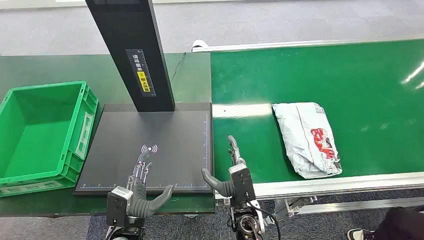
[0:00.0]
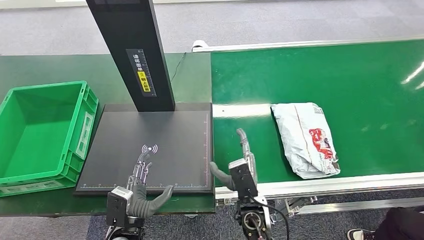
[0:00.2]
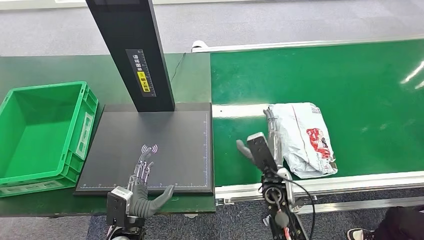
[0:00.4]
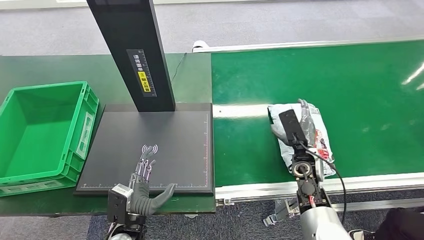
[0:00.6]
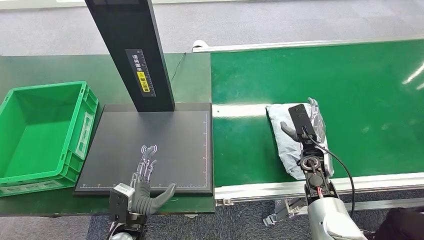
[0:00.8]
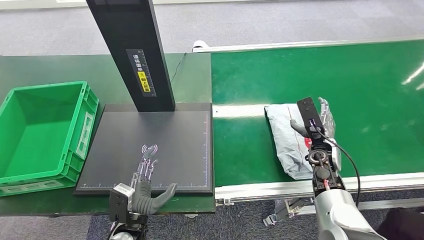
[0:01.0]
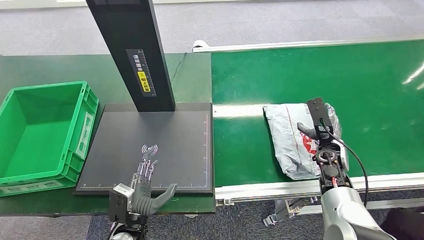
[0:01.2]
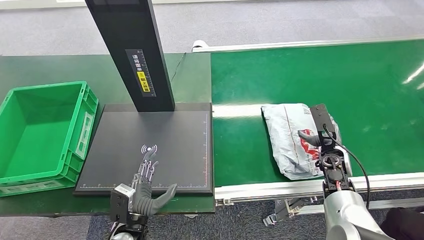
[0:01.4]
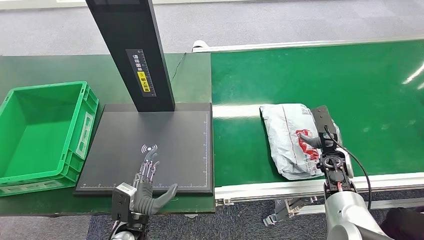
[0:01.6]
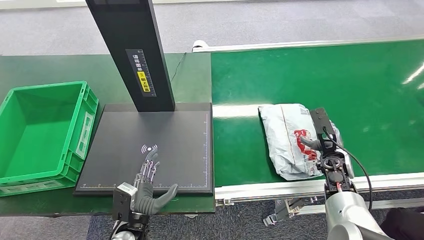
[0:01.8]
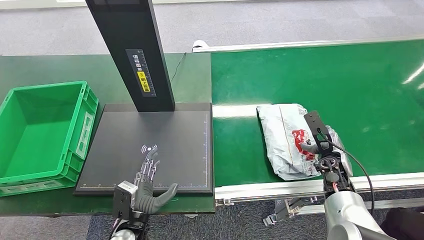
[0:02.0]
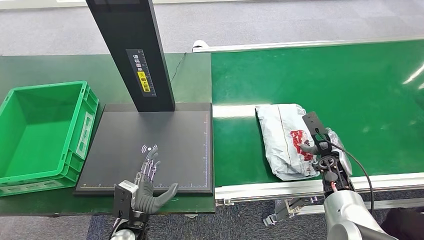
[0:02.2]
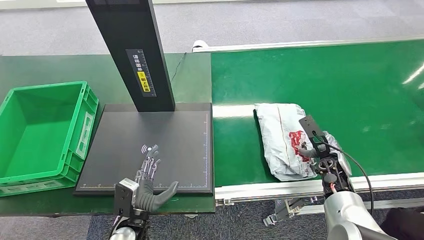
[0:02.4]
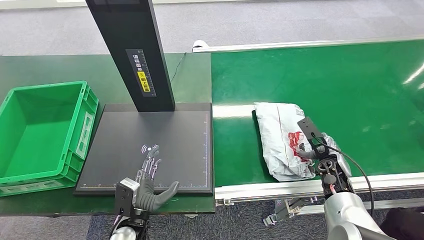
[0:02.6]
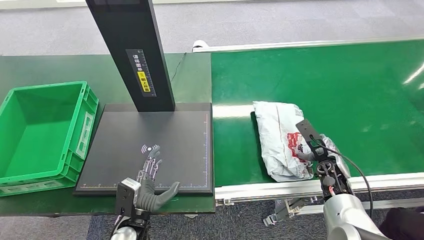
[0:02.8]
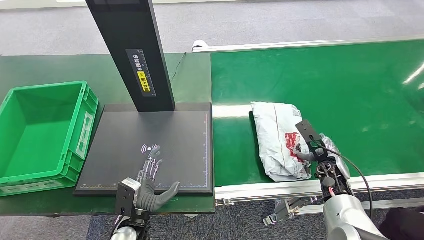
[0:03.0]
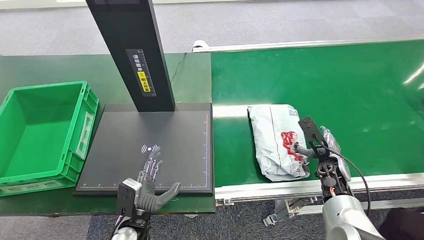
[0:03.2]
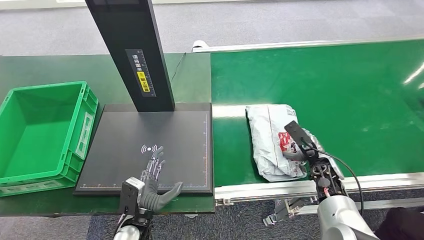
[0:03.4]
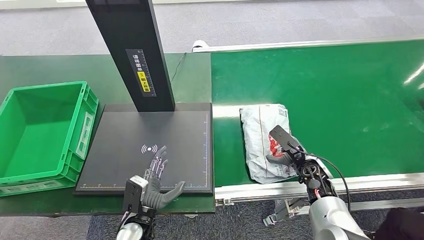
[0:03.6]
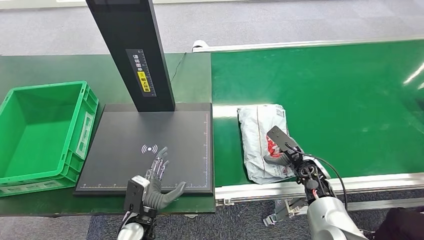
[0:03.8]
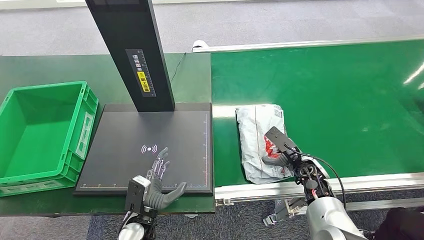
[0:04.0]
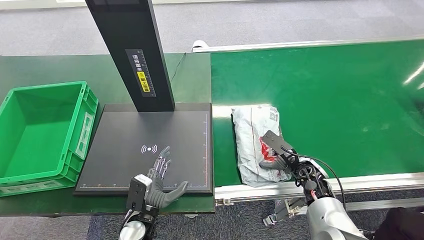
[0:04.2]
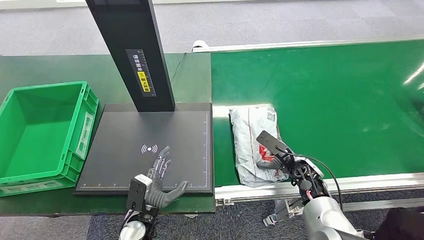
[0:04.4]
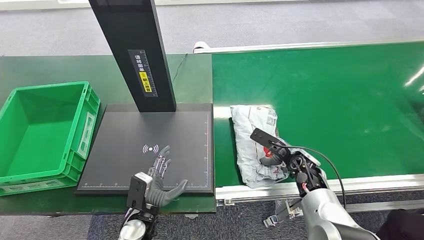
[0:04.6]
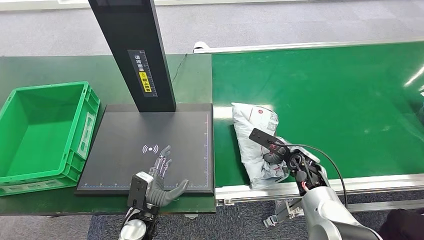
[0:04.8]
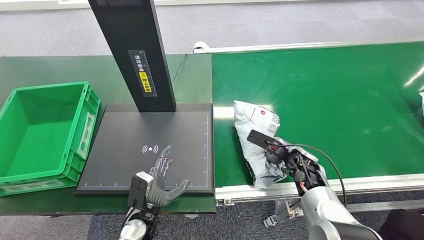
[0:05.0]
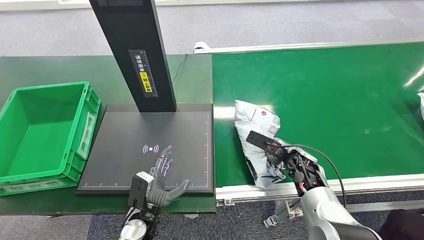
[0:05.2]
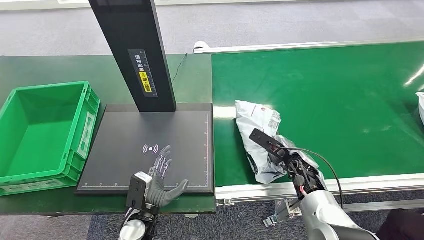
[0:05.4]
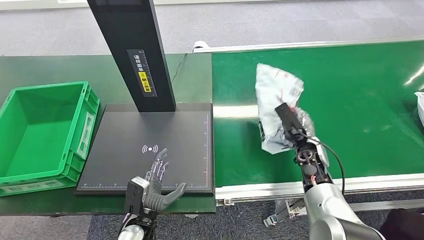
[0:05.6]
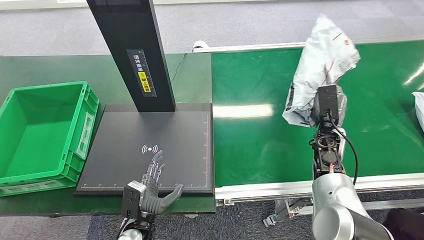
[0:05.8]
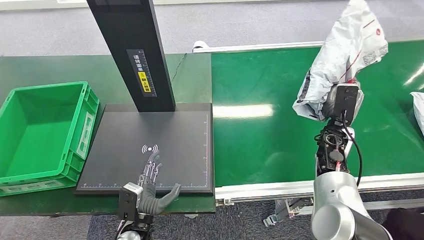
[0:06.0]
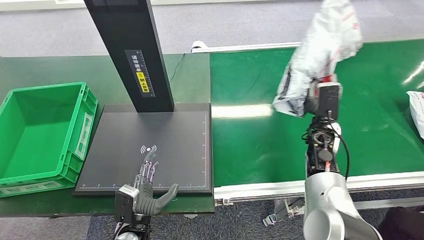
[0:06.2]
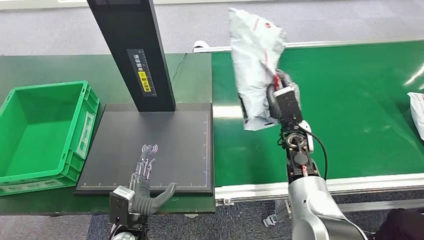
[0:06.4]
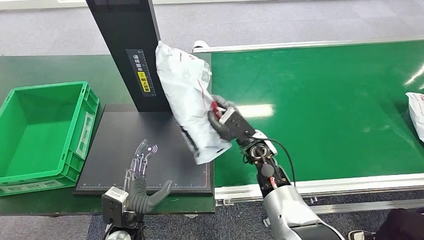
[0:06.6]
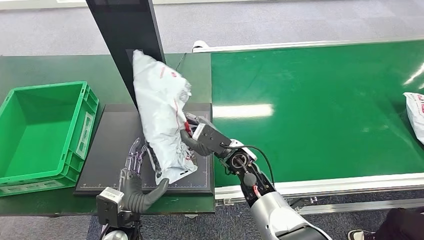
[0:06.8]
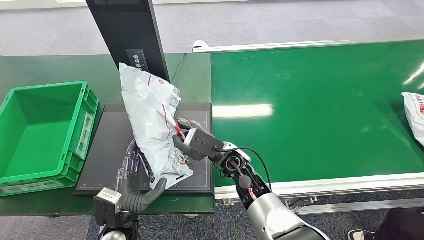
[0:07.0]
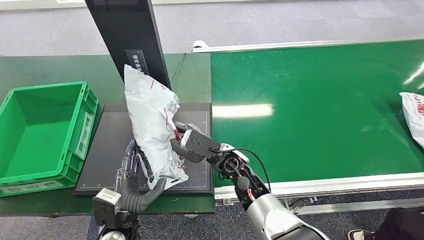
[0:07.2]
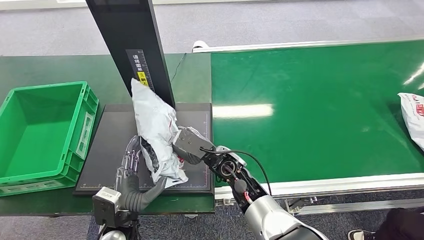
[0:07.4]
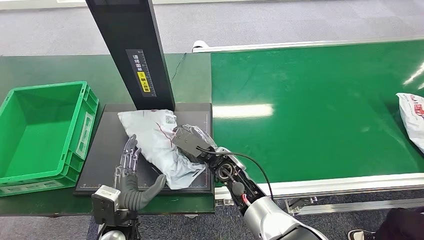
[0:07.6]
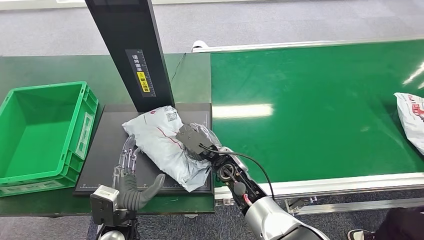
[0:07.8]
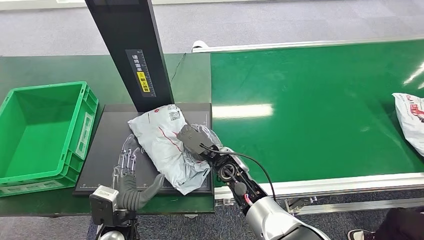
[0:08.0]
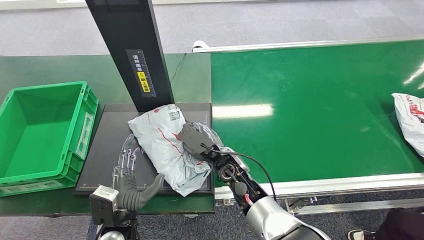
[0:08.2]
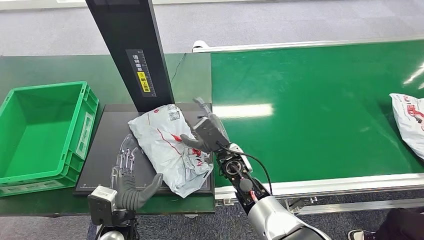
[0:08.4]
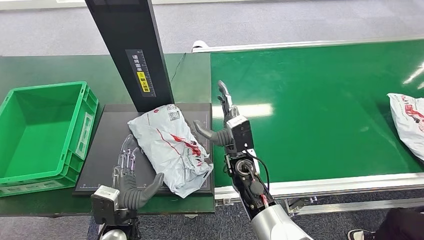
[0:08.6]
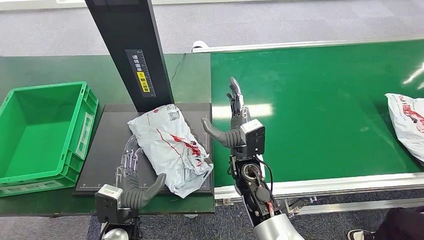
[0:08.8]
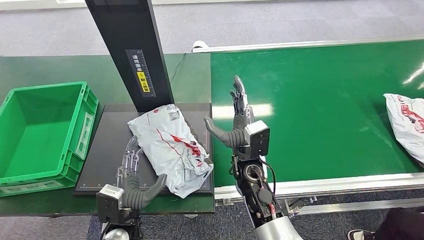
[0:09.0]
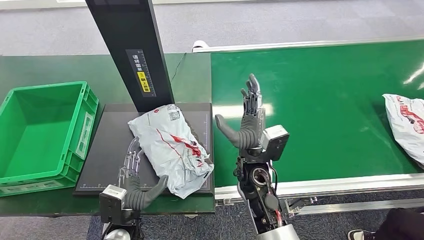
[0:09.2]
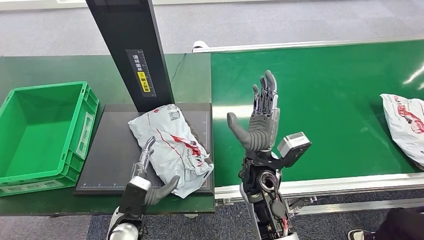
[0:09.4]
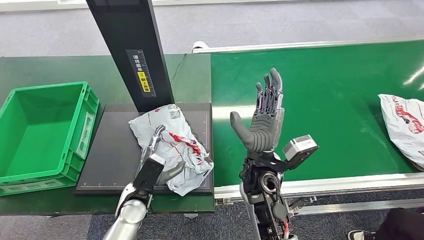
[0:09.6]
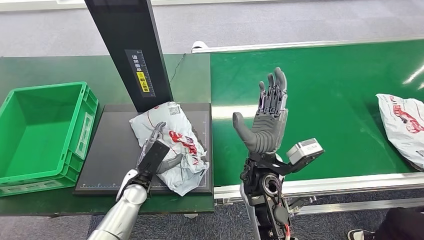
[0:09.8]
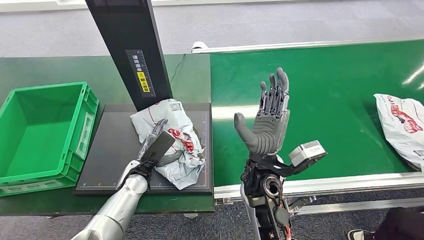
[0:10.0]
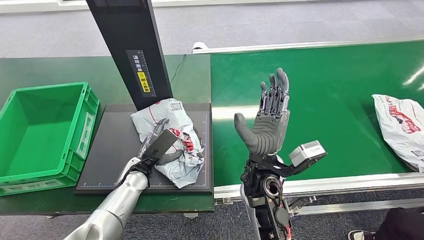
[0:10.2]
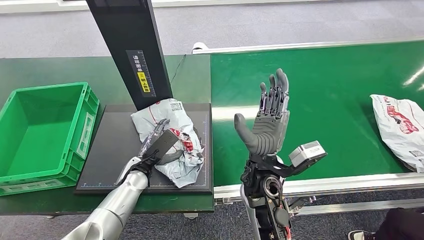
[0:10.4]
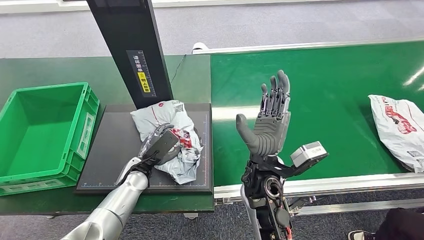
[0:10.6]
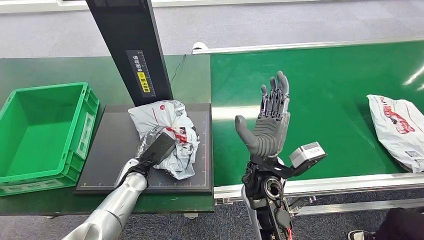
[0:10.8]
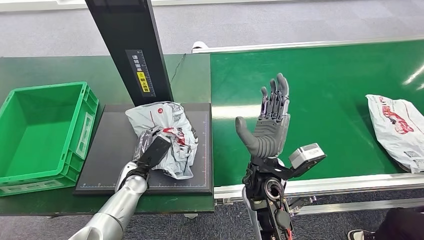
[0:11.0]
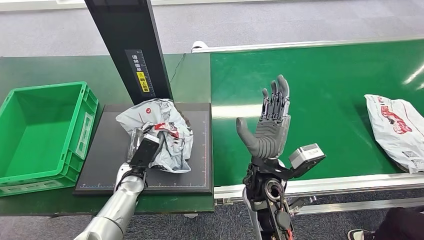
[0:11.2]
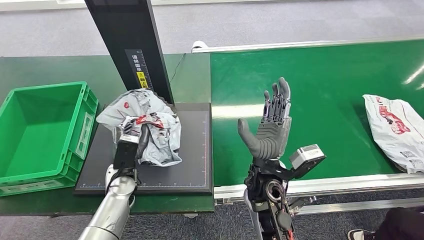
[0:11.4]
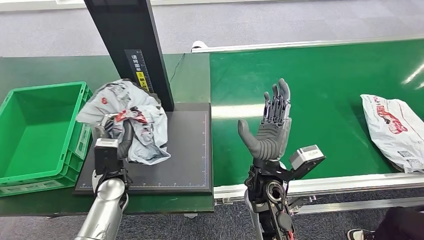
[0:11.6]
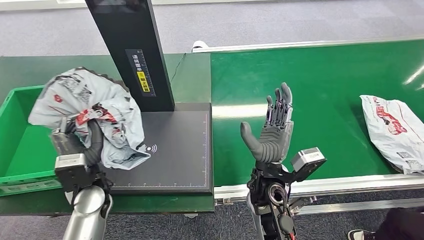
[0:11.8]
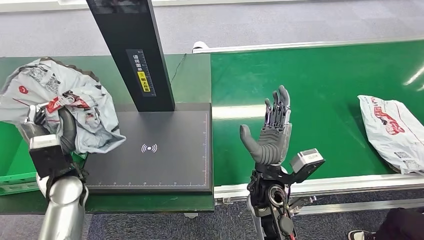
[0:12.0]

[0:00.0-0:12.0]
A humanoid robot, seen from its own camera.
Step, 0.0 to 6.0 s: Pick up the package from the conveyor belt.
Step, 6.2 to 9.0 s: Place the package onto the inbound machine.
Step, 9.2 to 11.4 s: Pick up the package from the inbound machine.
3.0 to 4.4 s: The right hand shifts some 5 cm to the left.
4.4 to 6.0 s: The right hand is displaced upward and forward by about 10 cm.

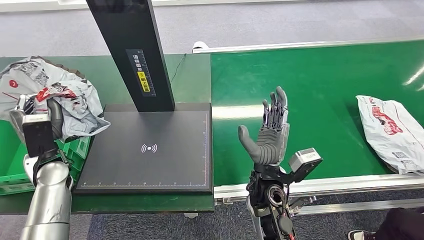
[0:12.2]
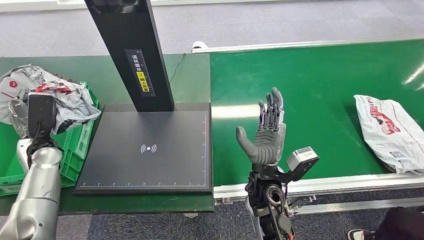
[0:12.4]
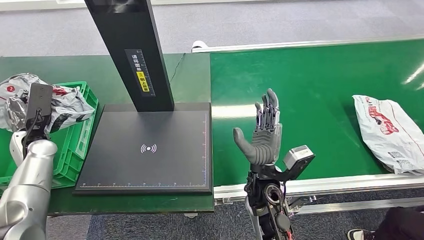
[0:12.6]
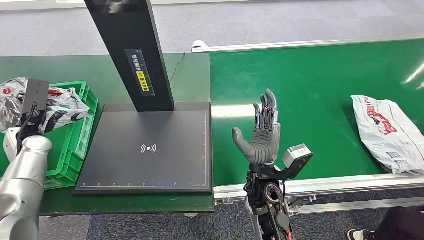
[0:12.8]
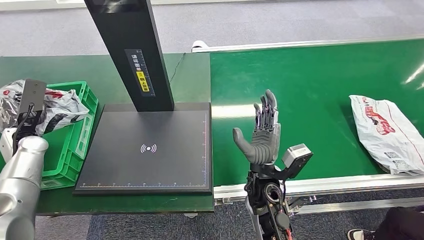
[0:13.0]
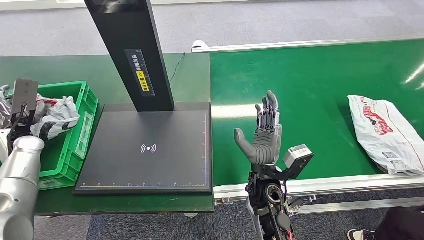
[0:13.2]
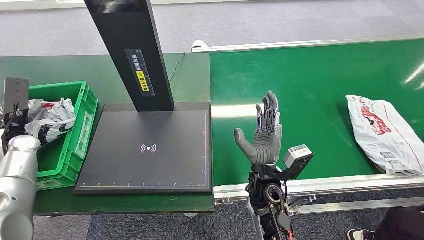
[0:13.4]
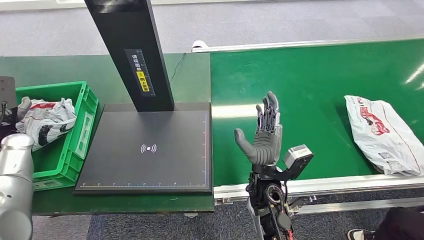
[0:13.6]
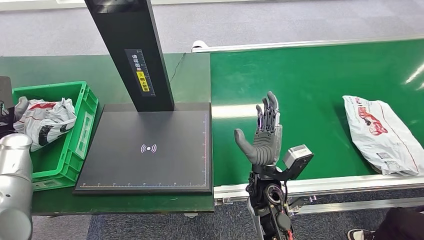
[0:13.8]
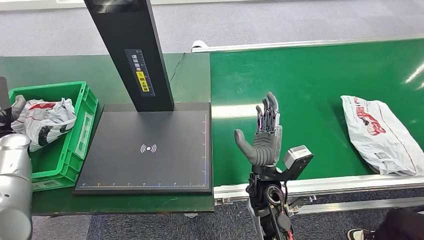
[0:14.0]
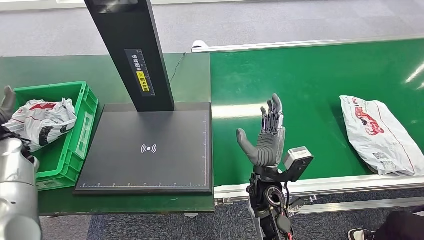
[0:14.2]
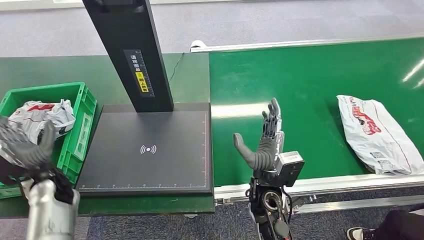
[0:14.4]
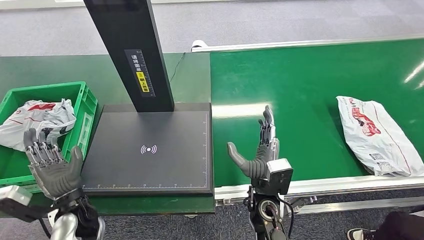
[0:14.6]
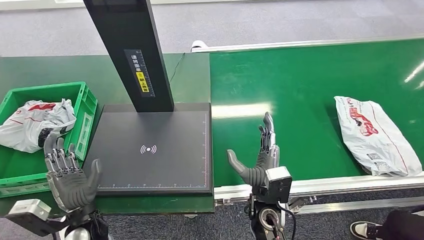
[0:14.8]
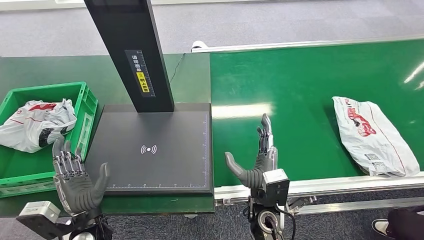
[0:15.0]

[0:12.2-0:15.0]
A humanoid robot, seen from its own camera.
Step, 12.2 to 15.0 s: Place the package into the parcel locker.
13.6 to 15.0 s: The right hand travels backward by roughly 5 cm. The left hand moves to the right and backward, some 30 cm.

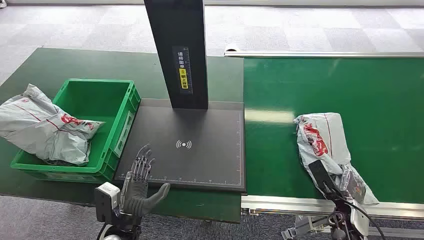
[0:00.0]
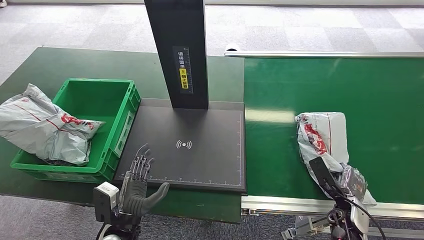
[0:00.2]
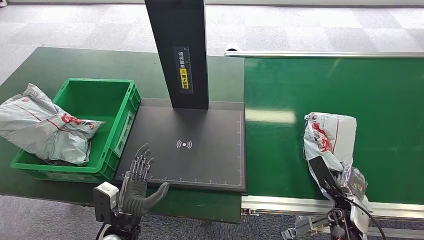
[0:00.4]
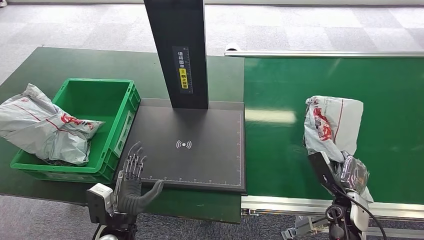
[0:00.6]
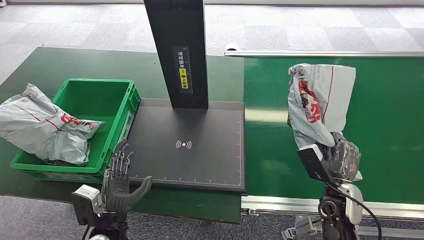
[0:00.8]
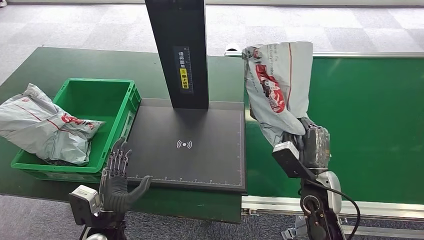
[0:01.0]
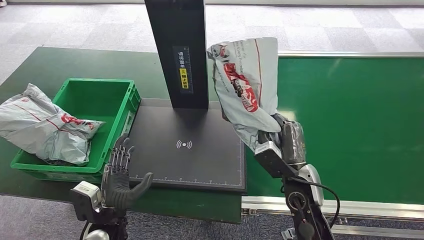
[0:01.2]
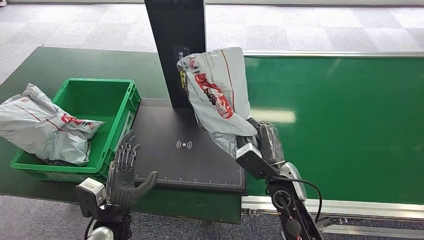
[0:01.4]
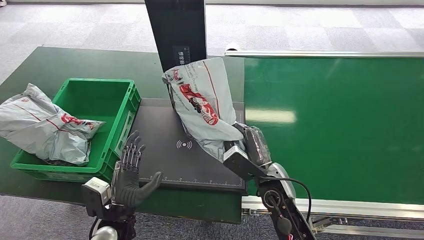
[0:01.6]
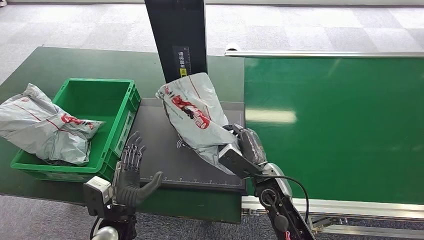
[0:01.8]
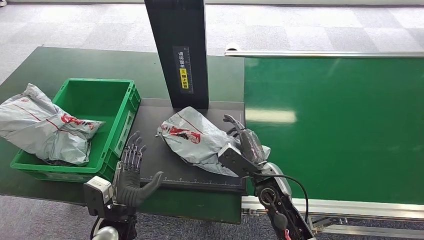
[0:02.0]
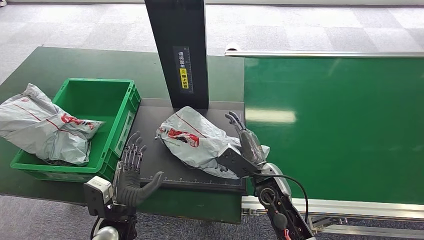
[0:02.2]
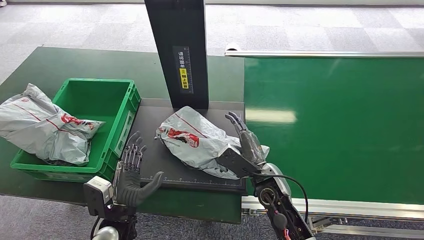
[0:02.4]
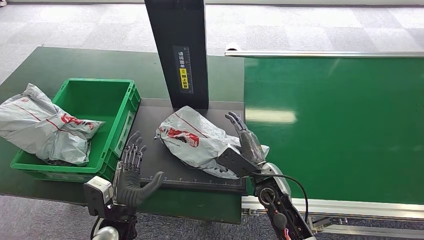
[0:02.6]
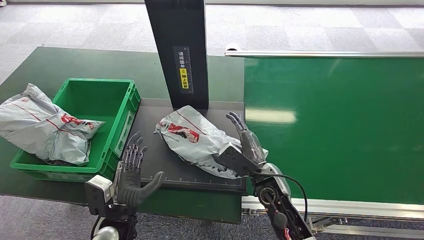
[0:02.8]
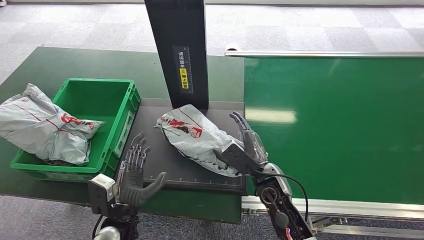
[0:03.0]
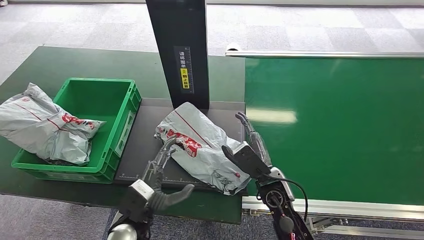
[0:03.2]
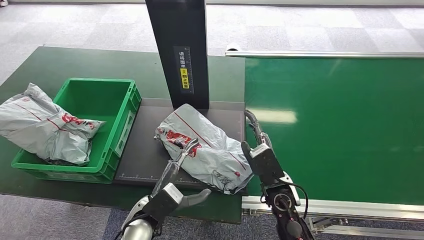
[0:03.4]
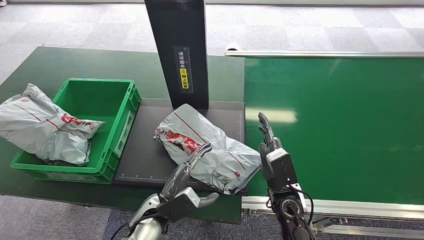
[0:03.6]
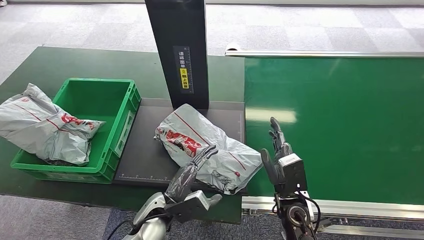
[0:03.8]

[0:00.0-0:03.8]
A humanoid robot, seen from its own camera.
Step, 0.0 to 1.0 s: Pick up the package from the conveyor belt.
Step, 1.4 to 3.4 s: Place the package onto the inbound machine.
1.2 to 2.6 s: The right hand travels to the left by roughly 5 cm.
2.6 to 3.8 s: The right hand changes place by roughly 5 cm, while the left hand goes about 5 cm to the right.
